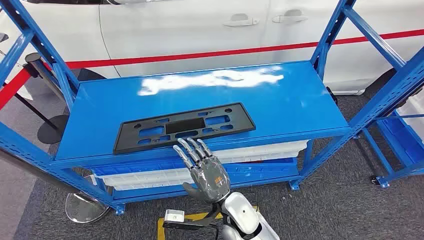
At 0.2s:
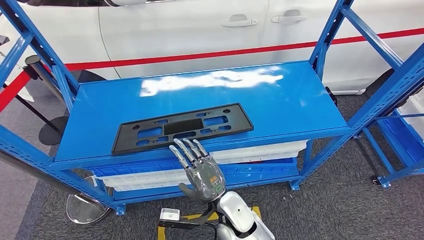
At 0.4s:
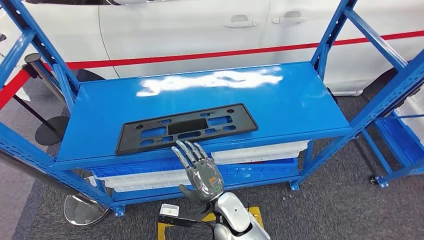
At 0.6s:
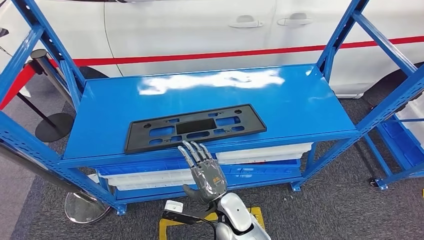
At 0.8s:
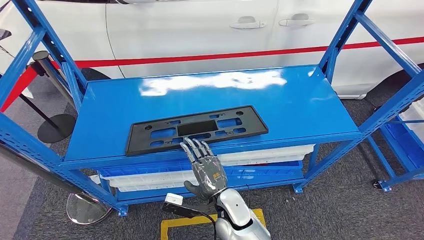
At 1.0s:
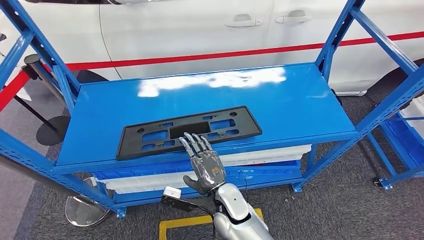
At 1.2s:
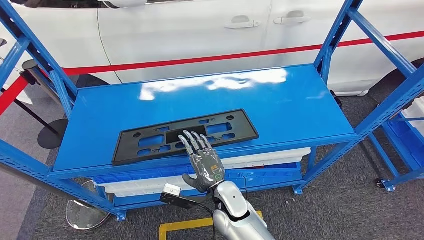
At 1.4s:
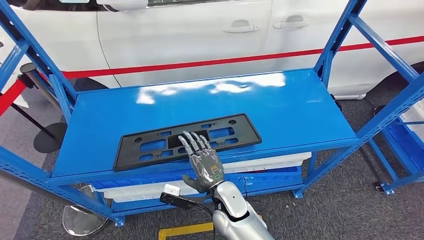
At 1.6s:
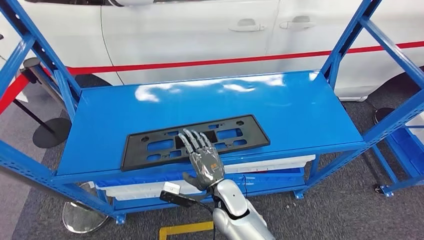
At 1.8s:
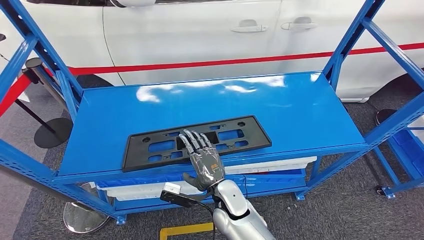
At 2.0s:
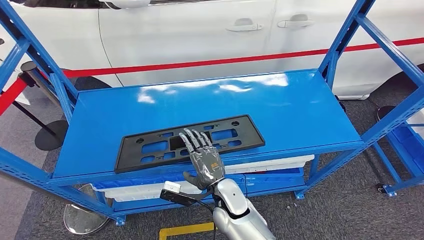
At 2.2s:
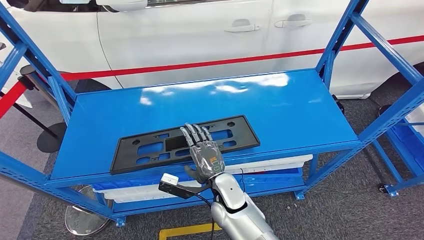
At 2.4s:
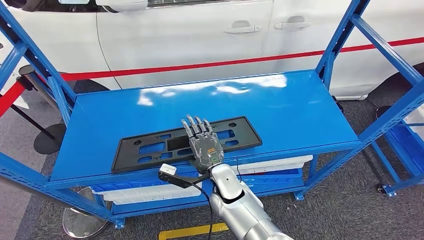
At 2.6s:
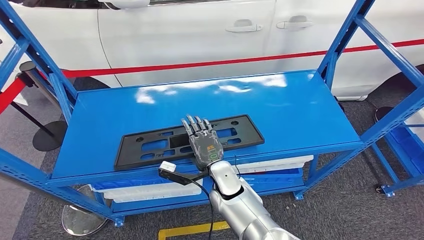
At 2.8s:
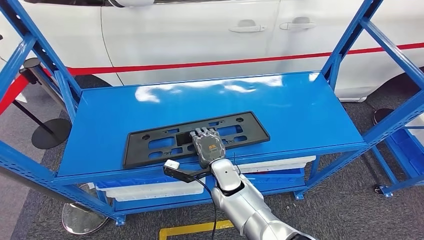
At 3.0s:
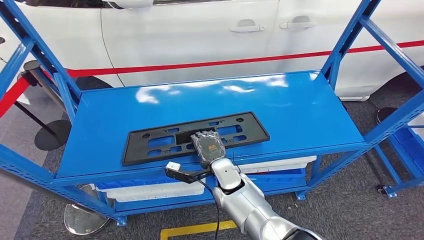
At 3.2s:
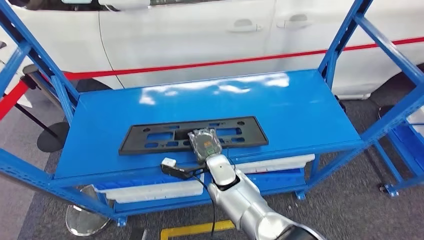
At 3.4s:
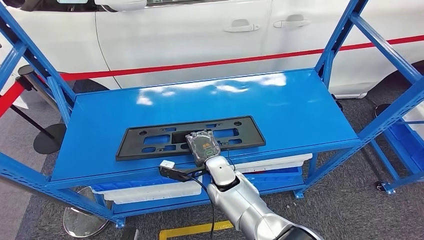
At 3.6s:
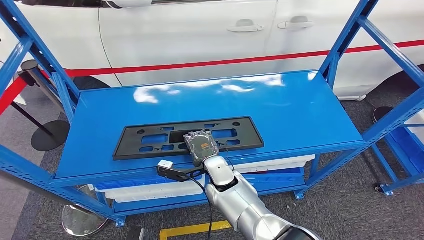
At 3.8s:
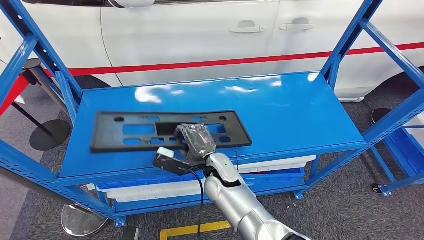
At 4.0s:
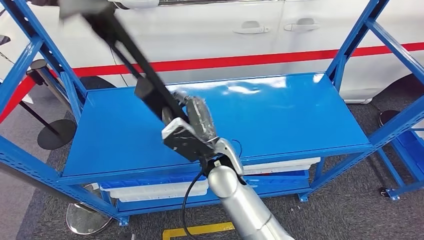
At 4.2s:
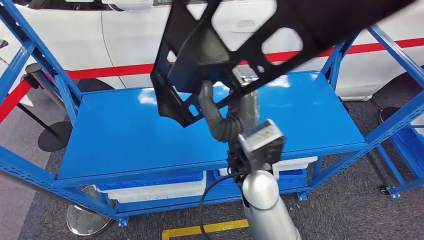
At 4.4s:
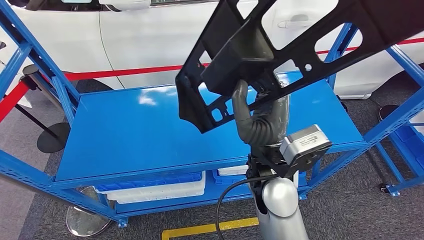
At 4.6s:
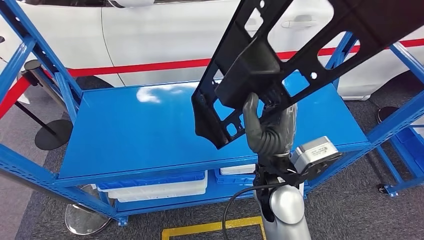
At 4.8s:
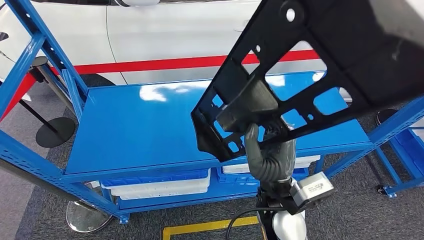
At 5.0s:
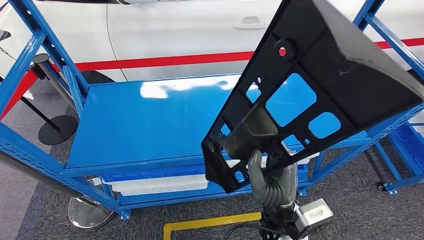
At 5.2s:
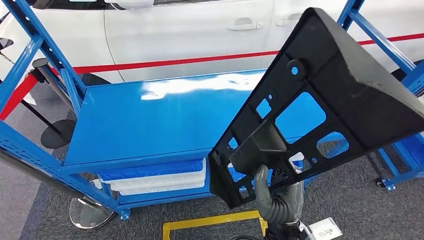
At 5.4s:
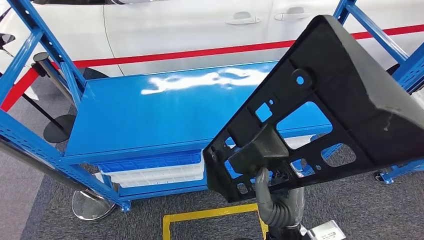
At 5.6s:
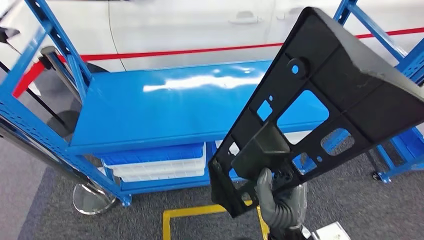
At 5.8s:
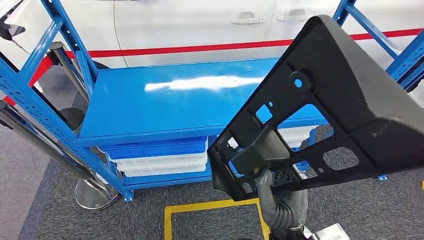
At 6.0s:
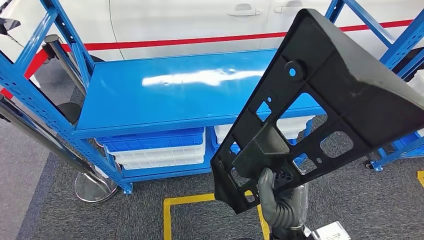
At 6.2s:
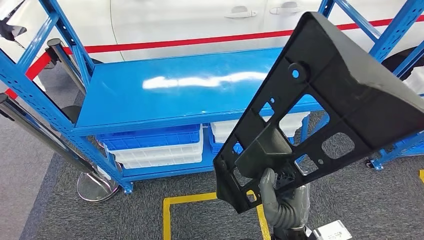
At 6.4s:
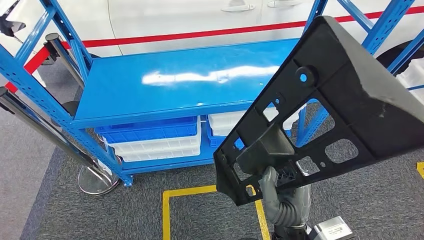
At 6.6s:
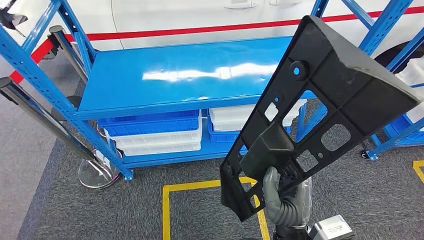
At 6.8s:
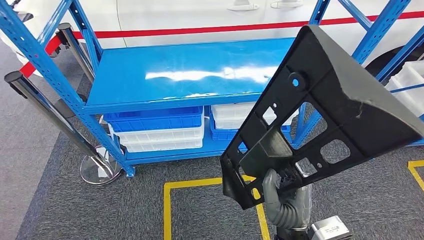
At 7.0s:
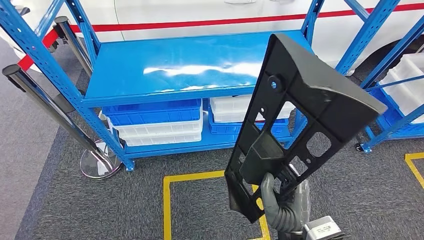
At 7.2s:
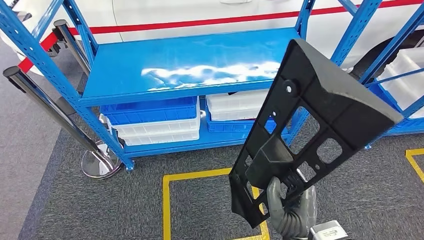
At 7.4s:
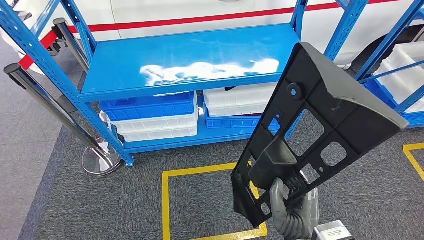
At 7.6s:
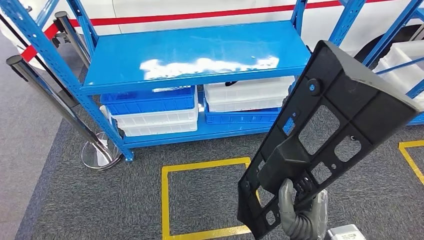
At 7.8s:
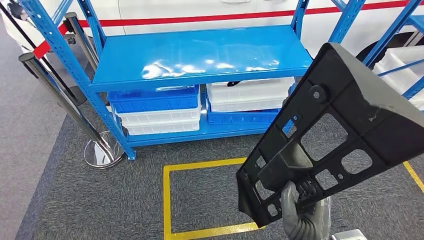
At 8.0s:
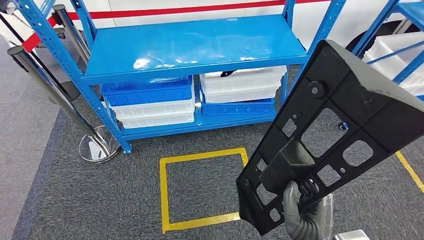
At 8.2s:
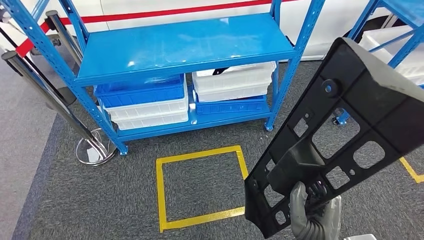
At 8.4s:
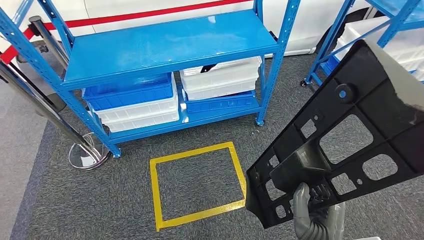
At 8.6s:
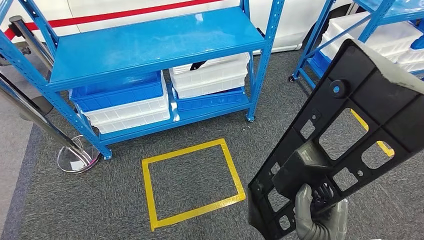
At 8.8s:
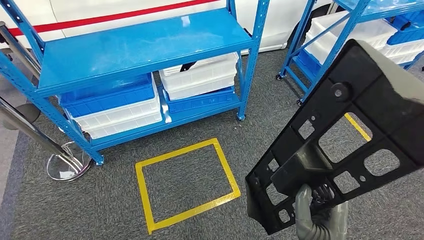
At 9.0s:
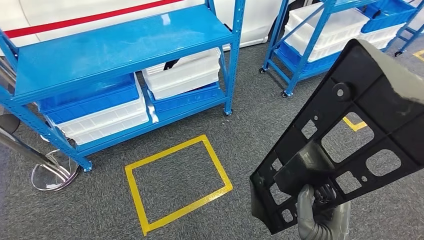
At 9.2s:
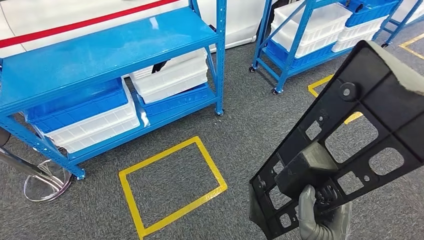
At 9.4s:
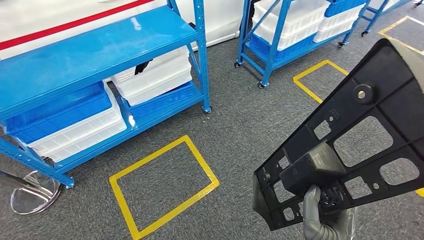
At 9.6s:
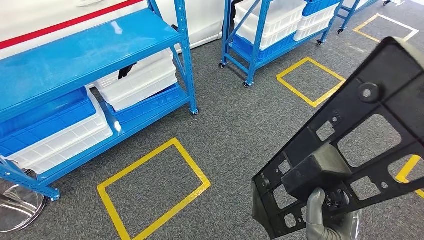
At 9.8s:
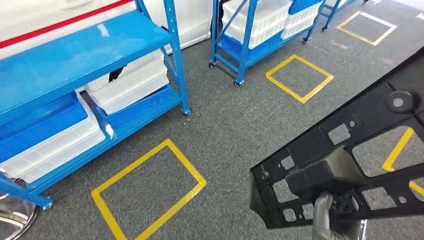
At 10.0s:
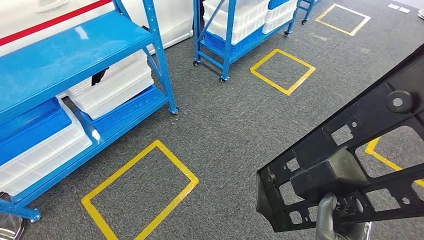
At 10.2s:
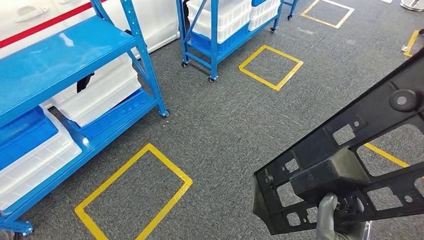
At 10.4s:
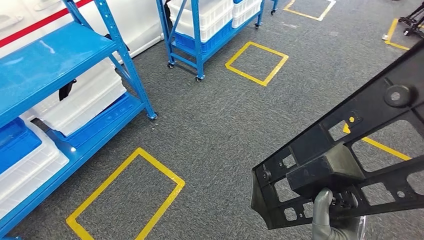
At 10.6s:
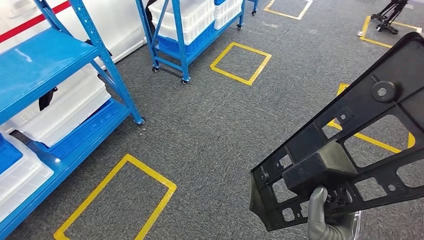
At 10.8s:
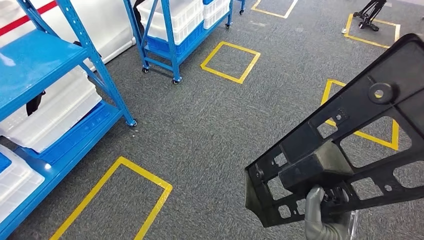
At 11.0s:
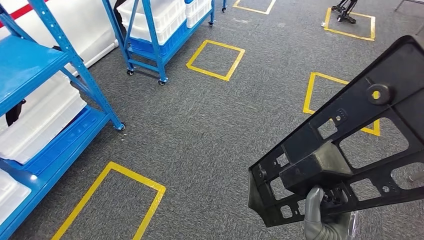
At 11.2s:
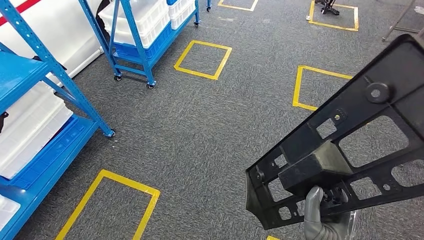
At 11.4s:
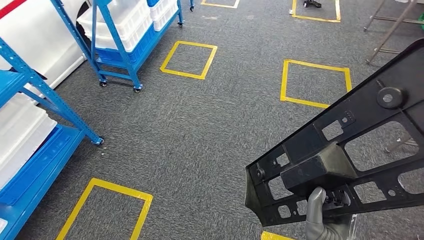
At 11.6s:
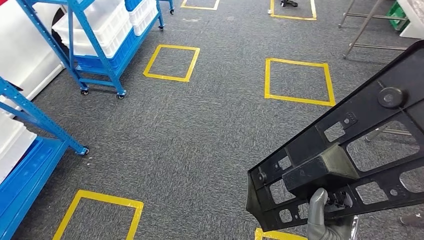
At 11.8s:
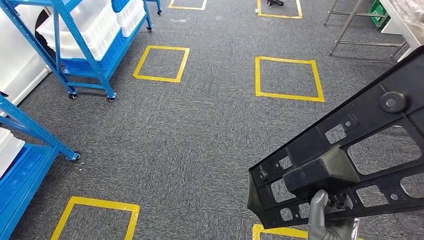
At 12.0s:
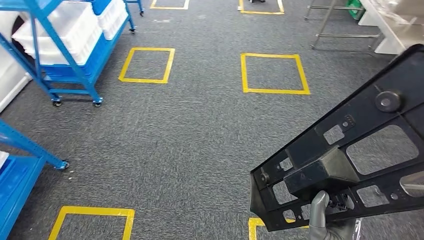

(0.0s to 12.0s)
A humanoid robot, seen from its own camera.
Step, 0.0s - 7.2s: Pick up the large material from the shelf.
1.6s - 3.0s: The right hand shifts approximately 5 cm forward.

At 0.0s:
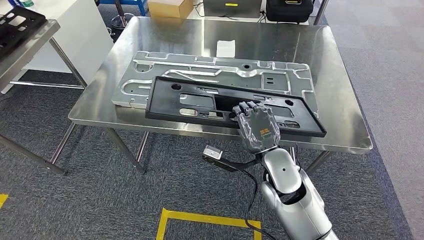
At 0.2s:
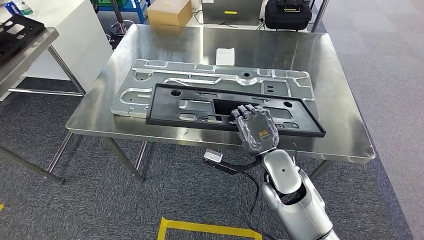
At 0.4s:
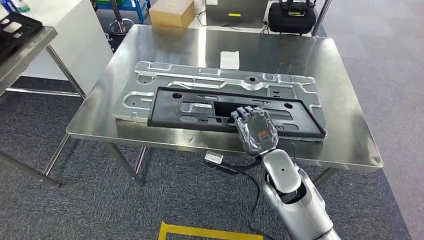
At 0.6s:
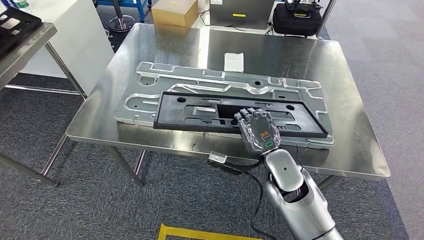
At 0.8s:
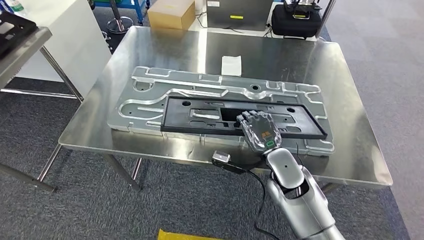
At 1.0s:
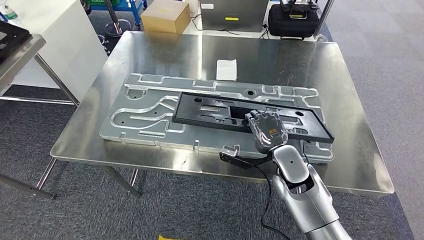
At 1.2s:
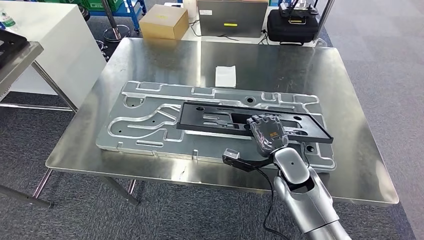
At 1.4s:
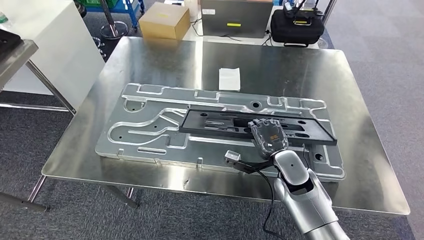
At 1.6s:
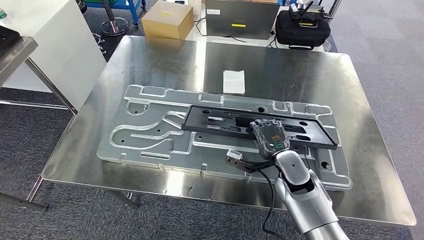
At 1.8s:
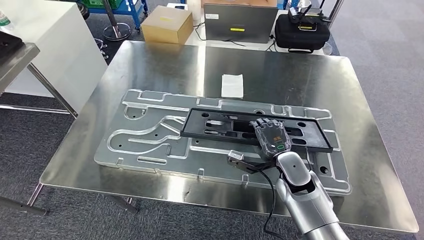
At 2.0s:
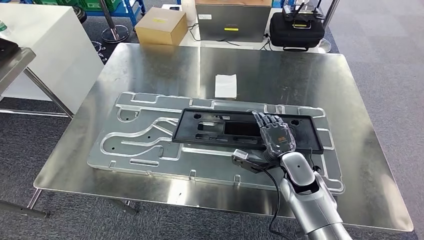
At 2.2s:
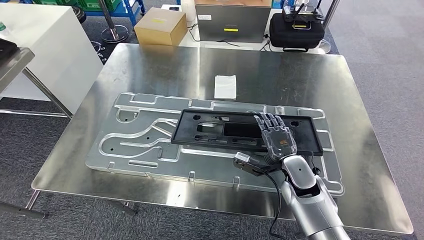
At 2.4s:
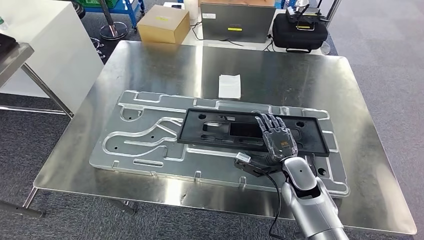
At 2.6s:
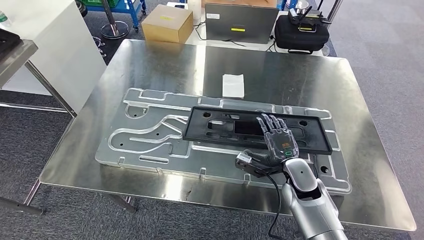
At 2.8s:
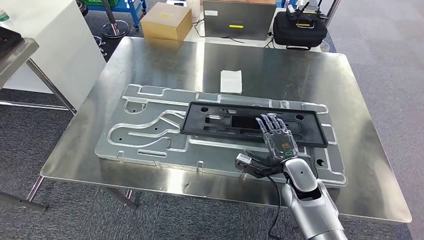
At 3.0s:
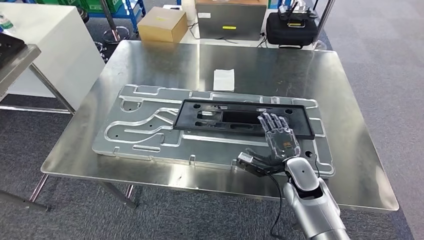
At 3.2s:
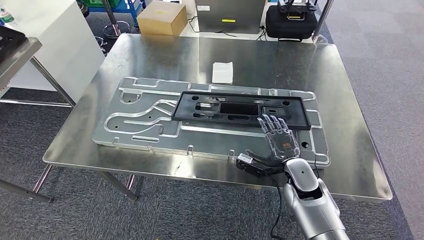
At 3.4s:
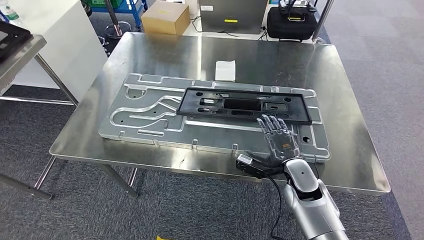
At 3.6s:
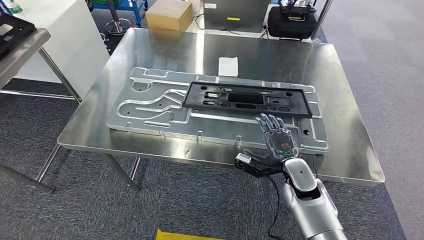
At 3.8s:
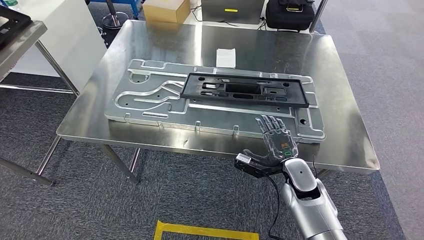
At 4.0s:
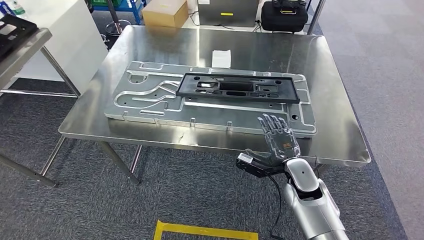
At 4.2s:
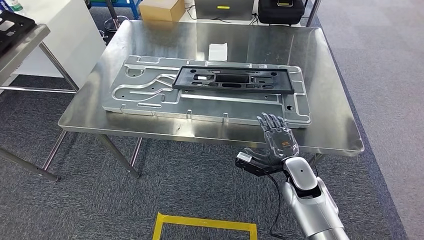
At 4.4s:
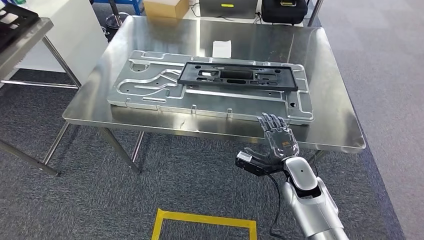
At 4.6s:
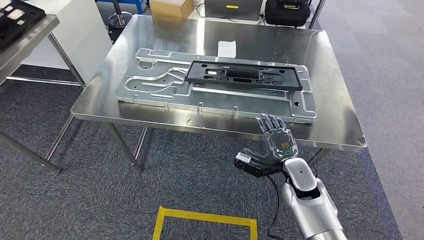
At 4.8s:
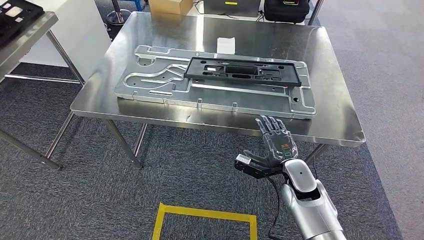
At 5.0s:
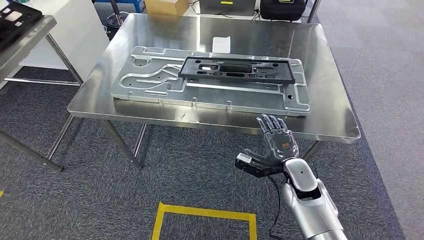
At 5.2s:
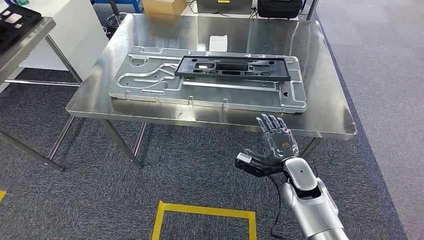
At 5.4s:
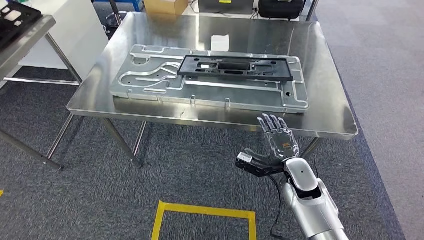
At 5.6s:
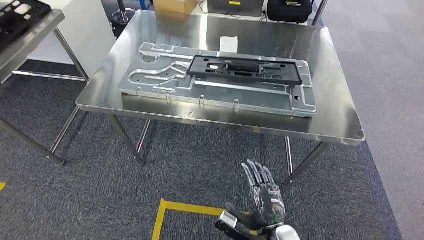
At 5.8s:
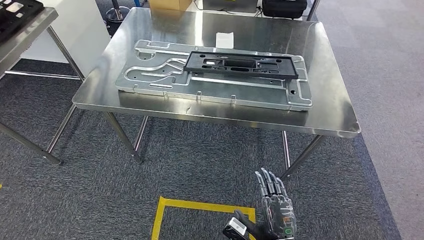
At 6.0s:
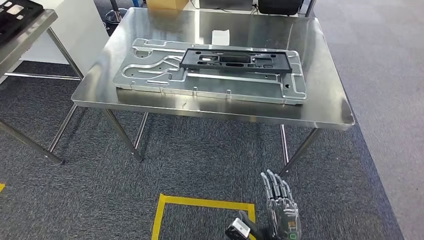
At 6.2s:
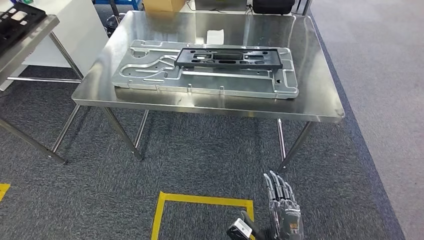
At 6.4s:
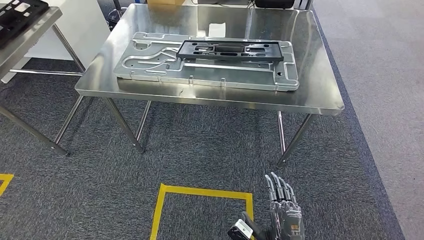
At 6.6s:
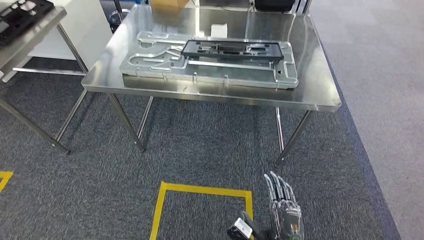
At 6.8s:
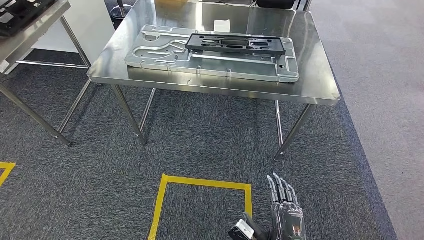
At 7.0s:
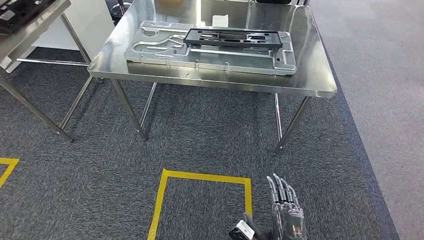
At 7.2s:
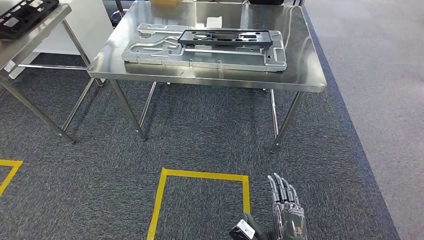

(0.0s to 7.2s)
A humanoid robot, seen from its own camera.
1.4s - 2.8s: The hands move only a little.
